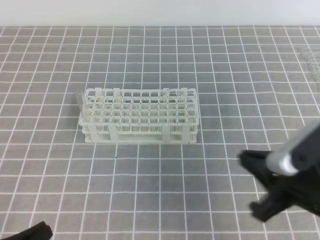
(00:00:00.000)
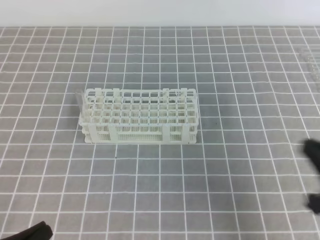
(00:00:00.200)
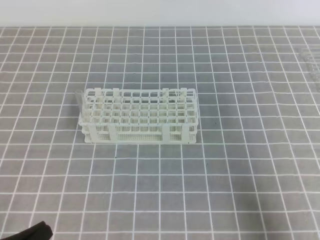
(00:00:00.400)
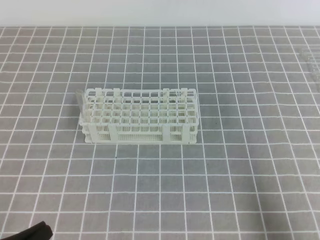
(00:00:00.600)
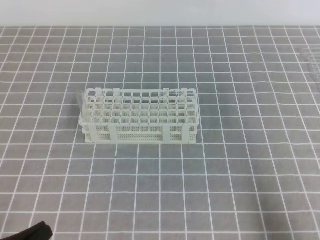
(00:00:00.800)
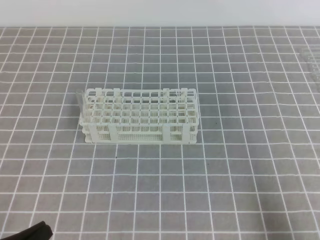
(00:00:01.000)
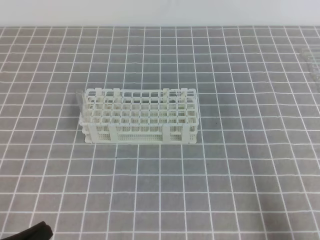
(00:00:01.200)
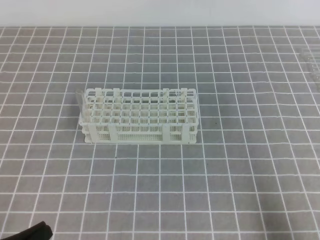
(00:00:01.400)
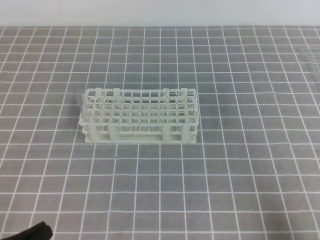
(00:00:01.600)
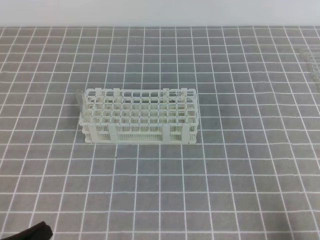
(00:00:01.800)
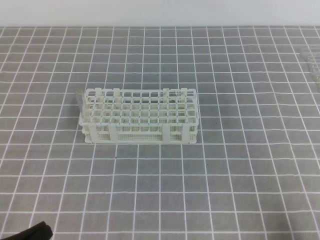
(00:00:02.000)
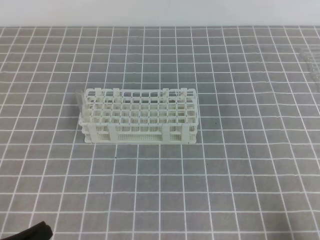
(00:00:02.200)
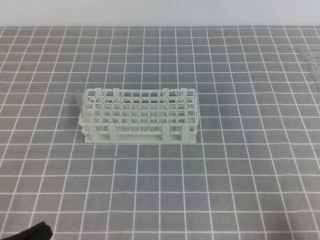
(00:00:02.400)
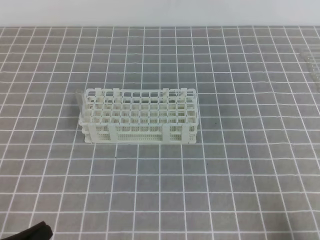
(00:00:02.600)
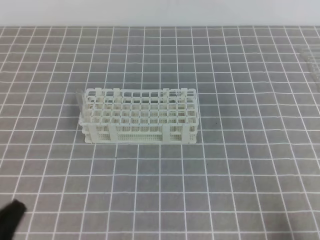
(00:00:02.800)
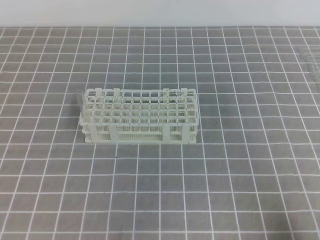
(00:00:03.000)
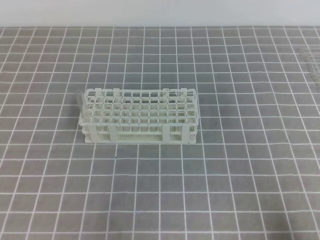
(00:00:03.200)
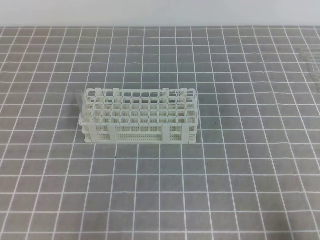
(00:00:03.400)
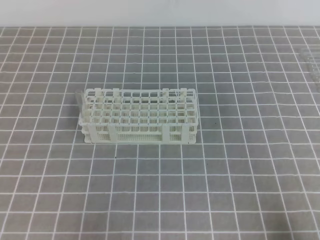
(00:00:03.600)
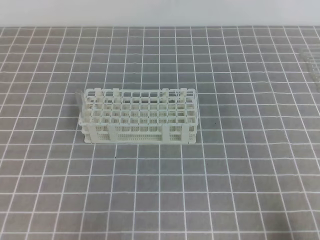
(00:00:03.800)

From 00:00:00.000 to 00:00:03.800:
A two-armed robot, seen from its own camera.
From 00:00:00.000 to 00:00:01.200: The right gripper moves to the right, backward and downward, roughly 15 cm.
